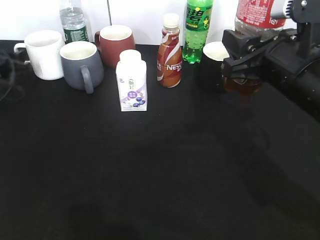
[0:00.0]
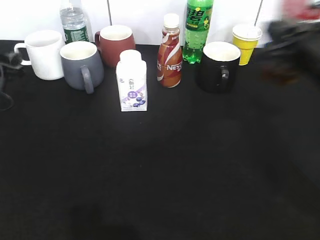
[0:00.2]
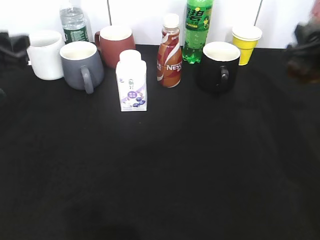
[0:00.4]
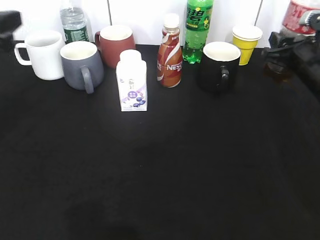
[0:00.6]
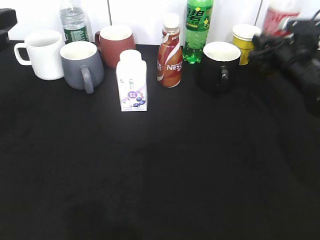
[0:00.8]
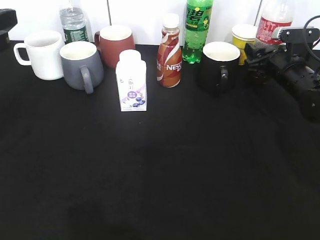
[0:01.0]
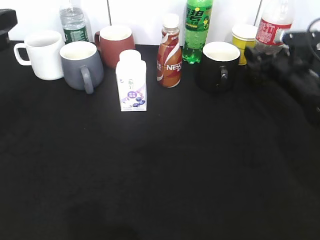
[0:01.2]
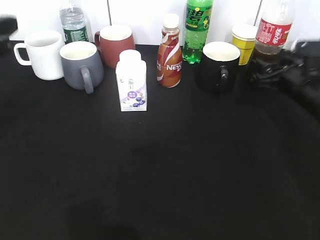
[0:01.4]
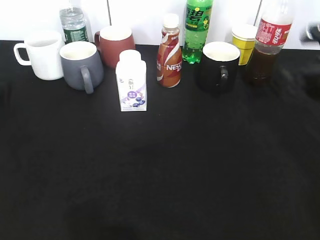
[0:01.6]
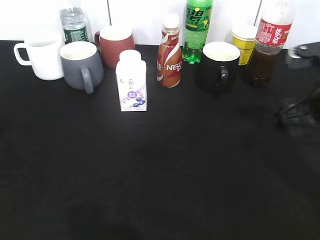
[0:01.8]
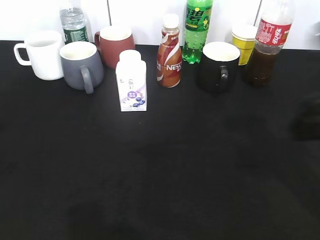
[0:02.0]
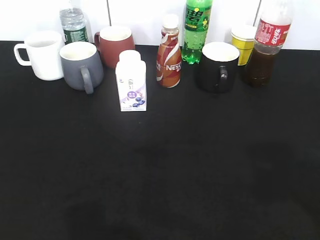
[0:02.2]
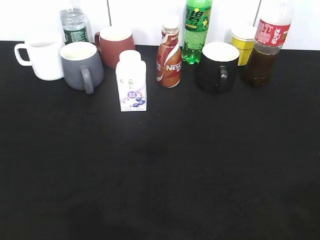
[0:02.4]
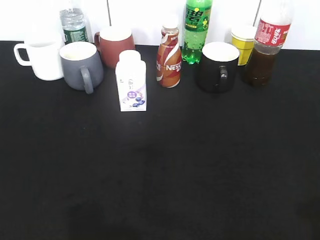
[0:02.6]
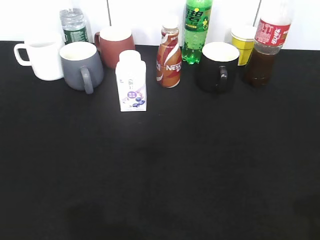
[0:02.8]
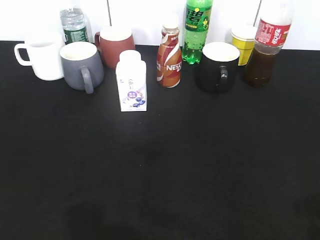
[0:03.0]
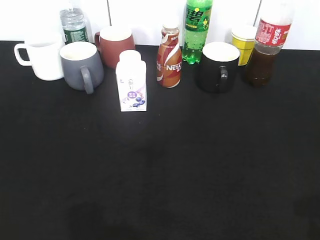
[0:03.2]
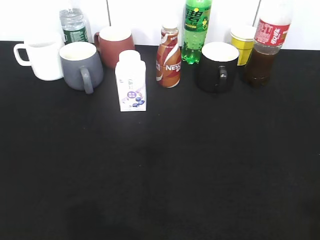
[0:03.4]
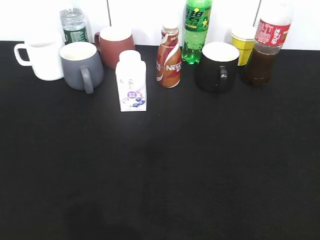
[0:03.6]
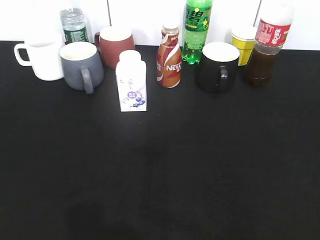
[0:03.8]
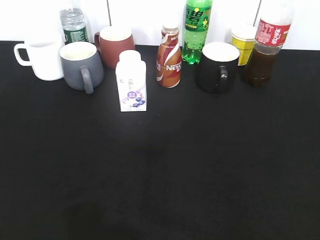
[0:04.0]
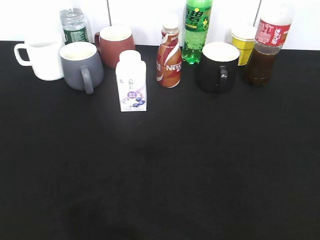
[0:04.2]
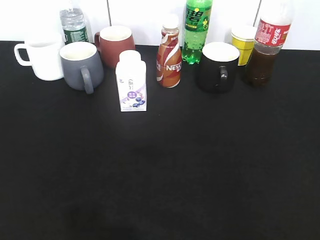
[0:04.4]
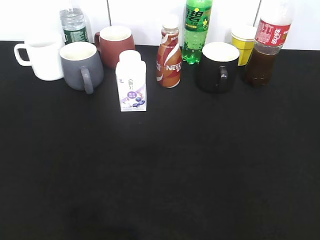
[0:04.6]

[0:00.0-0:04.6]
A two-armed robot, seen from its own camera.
Step, 0:00.2 to 0:01.6: Place the cola bottle on the table with right gripper.
0:00.0 to 0:01.6: The right gripper goes about 15 cm to the right, forward and downward, and opens. Meanwhile the left gripper goes roughly 20 cm backward and upward.
0:01.6 to 0:03.0: Both grippers move backward, some 25 cm.

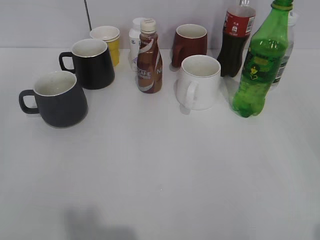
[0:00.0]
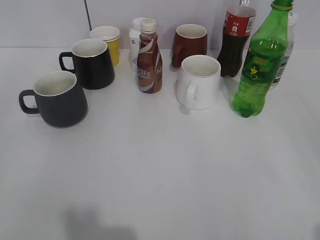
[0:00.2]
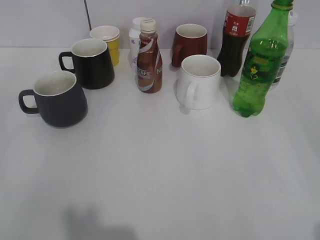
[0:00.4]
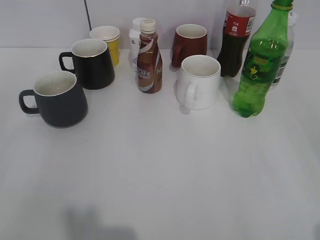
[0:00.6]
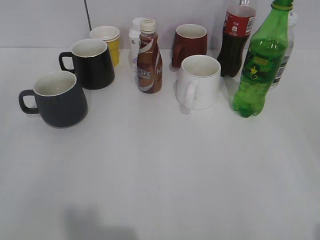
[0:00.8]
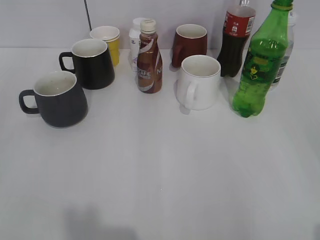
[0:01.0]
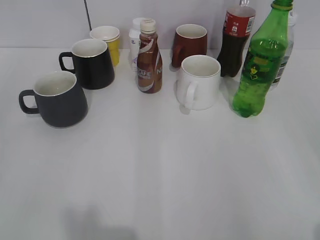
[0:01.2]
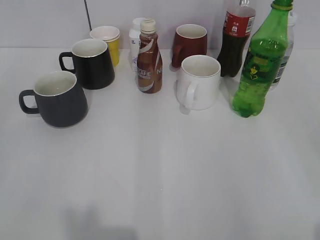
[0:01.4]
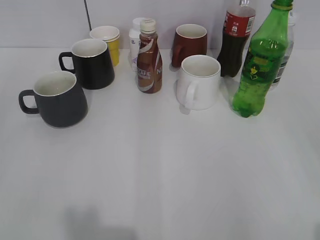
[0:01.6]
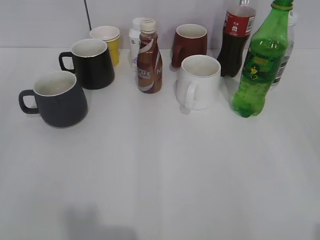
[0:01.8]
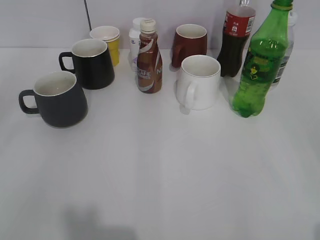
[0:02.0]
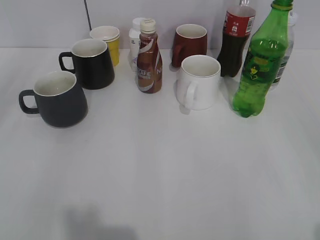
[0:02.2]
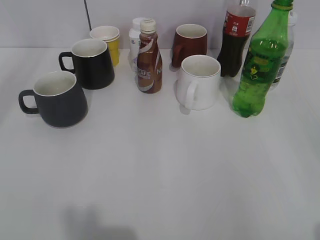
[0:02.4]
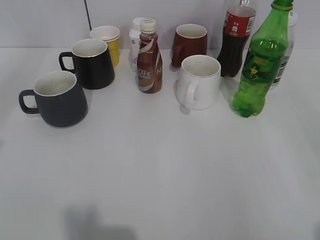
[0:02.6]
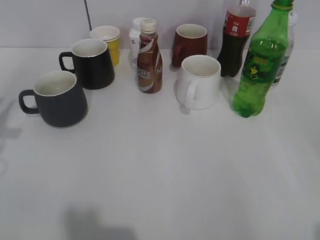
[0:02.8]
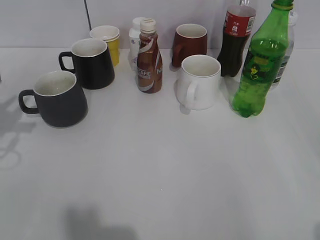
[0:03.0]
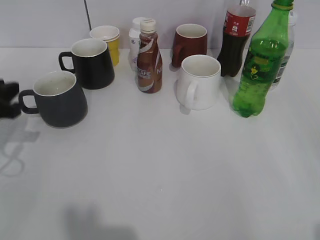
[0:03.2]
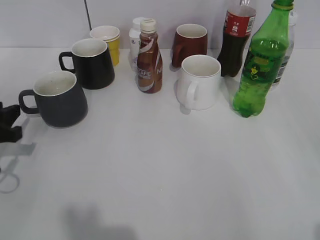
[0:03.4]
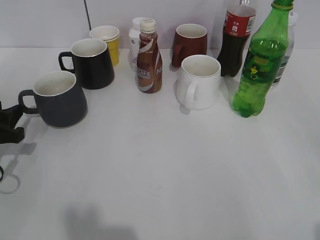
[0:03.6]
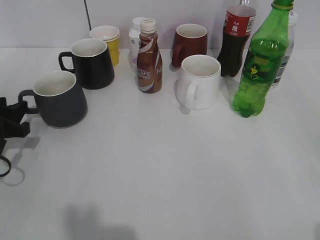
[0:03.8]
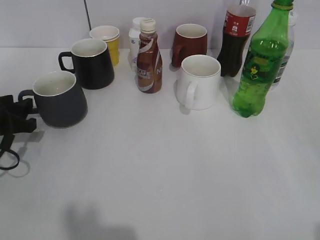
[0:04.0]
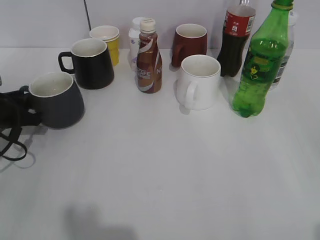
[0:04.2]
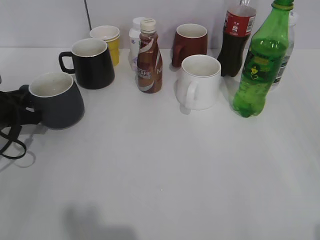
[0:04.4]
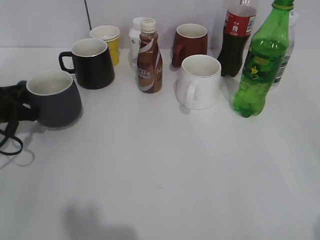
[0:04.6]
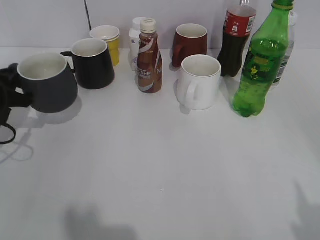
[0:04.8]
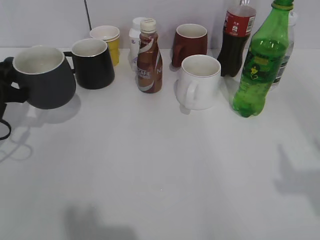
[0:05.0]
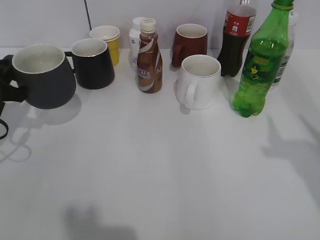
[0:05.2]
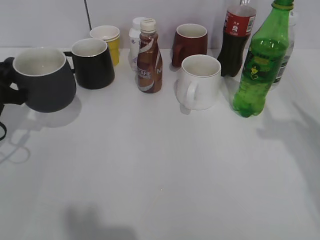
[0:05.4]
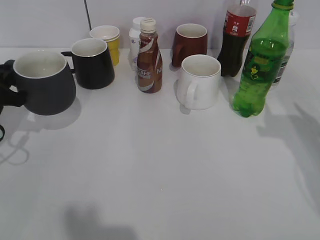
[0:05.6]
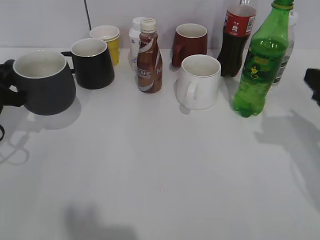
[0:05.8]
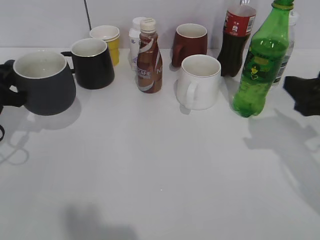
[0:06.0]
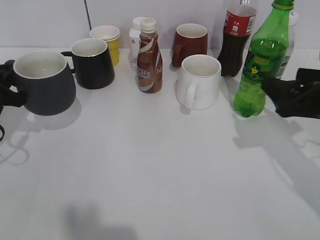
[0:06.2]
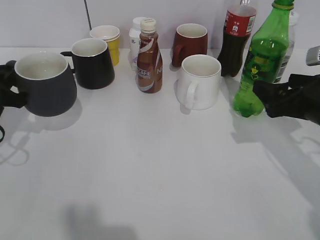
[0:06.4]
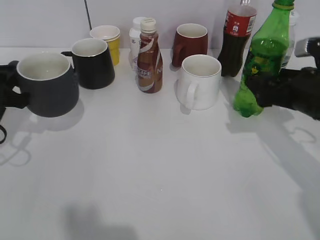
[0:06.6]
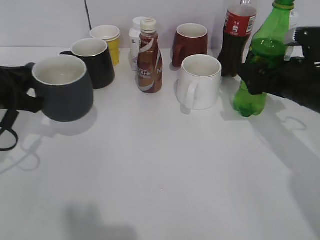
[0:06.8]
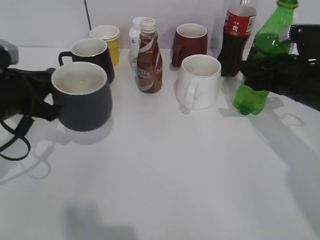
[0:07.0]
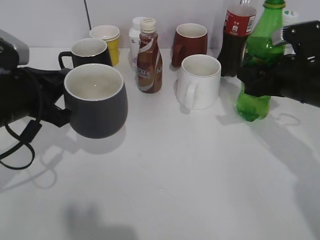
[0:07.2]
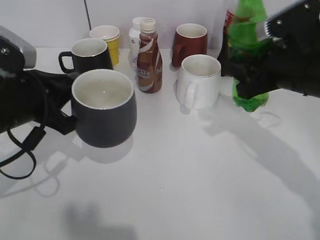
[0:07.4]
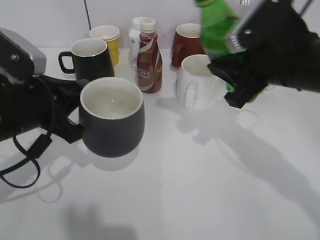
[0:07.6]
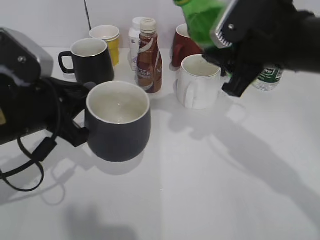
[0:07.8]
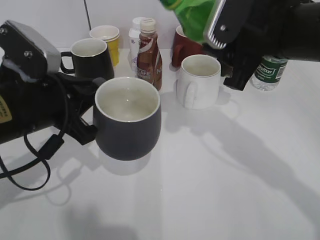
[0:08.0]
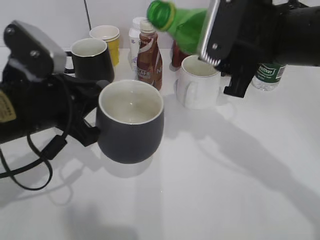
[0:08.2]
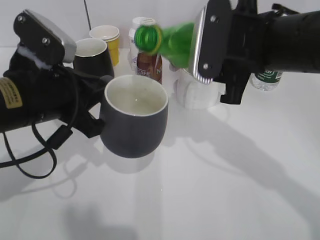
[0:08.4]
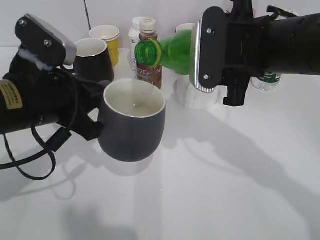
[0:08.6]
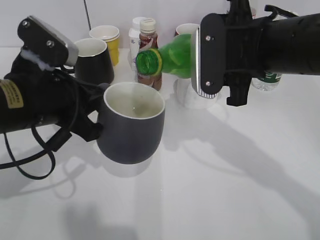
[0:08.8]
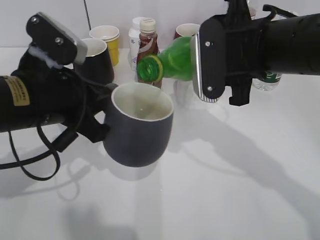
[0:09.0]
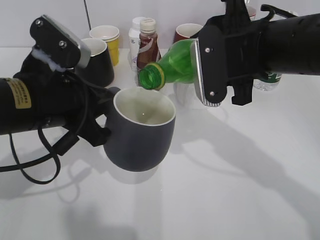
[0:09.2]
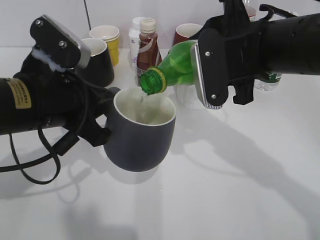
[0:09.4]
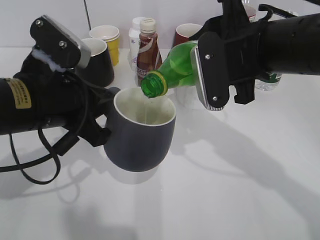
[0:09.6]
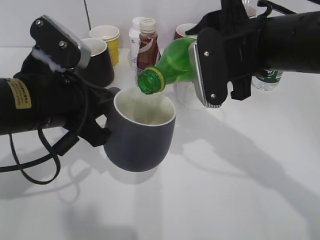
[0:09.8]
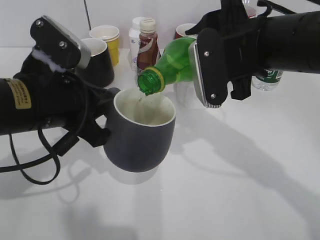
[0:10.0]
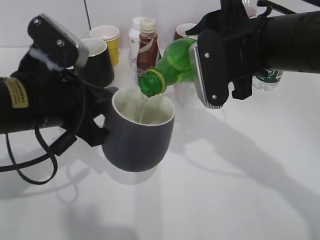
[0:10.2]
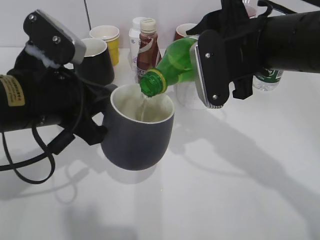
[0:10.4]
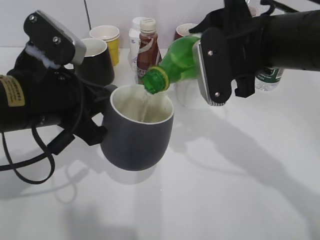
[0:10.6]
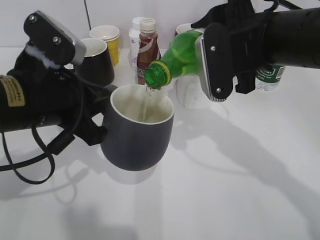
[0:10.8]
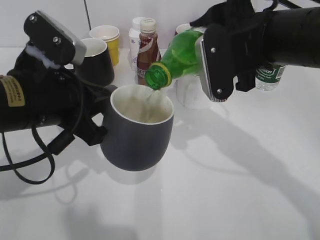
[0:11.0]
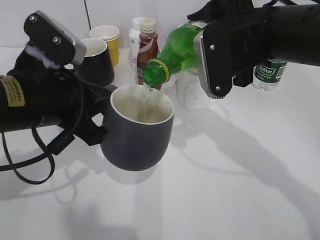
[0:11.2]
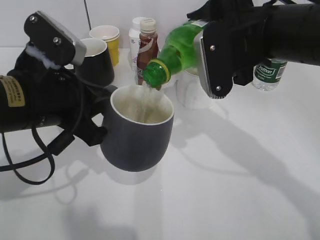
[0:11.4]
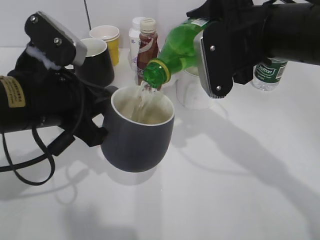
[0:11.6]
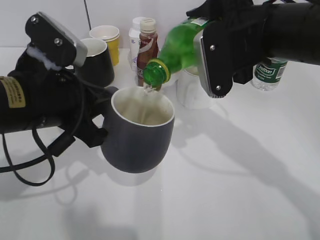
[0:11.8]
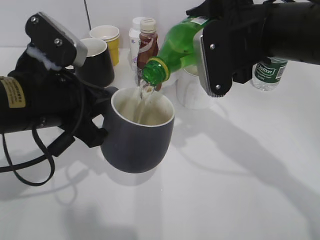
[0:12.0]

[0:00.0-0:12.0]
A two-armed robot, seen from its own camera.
Step, 0:01.8 to 0:04.4: Grasp the grey cup with left gripper.
Step, 0:04.6 to 0:05.4: Lift the grey cup with left gripper.
Step, 0:05.6 to 0:07.0: Grasp the bottle with sprite with right gripper.
0:01.6 to 0:03.0: The left gripper goes some 25 cm forward.
0:03.0 to 0:04.4: The left gripper goes about 15 cm downward and forward, and closes its fingers.
0:04.4 to 0:06.0: The left gripper moves upward, about 5 cm. The right gripper shifts some 25 cm forward.
0:06.0 to 0:07.6: The left gripper shifts some 10 cm to the right and backward, while the right gripper is displaced to the left by about 10 cm, and closes up.
0:09.0 to 0:12.0: There are only small adjustments of the grippers.

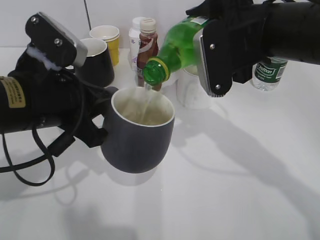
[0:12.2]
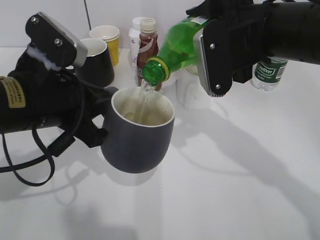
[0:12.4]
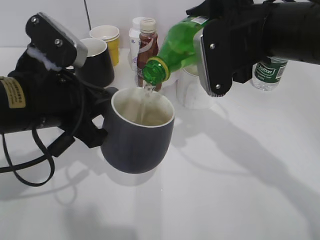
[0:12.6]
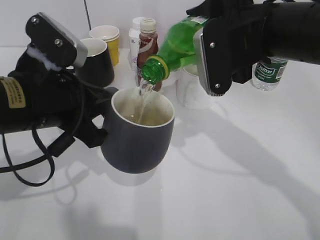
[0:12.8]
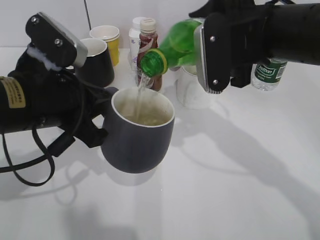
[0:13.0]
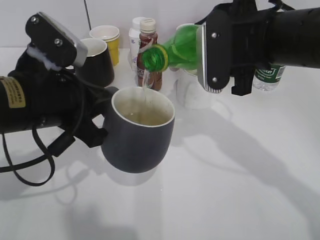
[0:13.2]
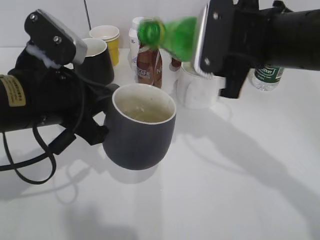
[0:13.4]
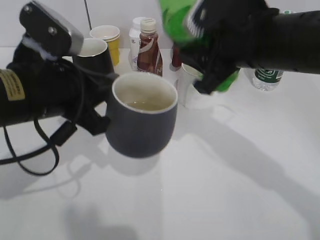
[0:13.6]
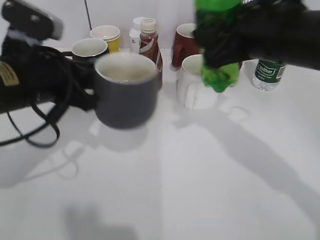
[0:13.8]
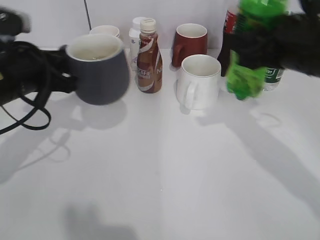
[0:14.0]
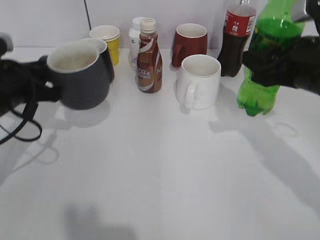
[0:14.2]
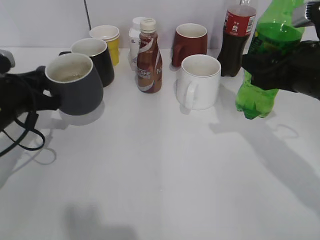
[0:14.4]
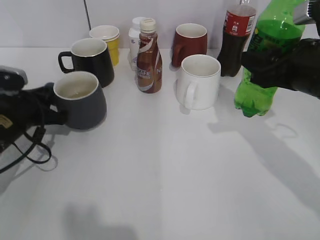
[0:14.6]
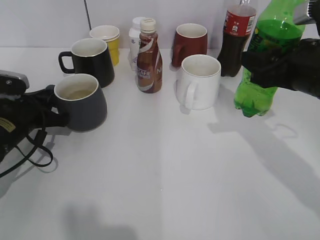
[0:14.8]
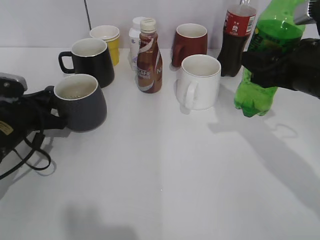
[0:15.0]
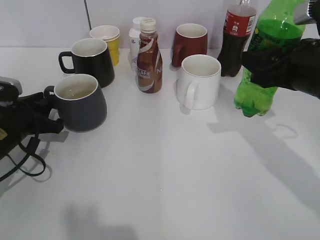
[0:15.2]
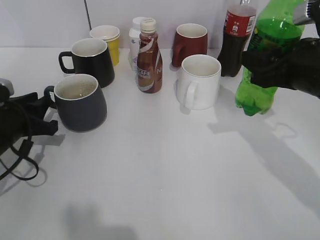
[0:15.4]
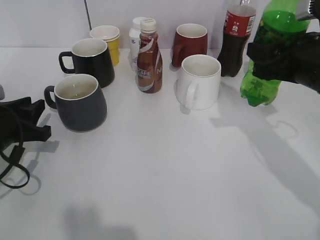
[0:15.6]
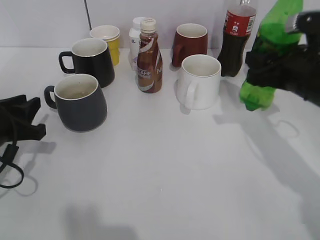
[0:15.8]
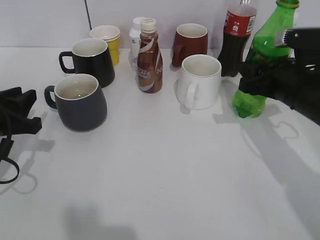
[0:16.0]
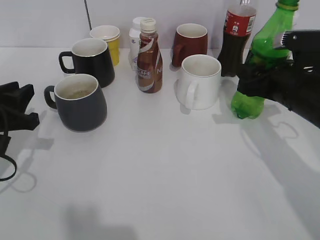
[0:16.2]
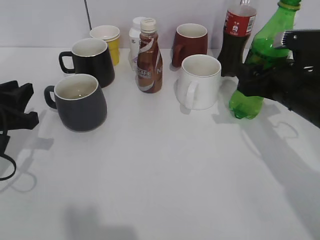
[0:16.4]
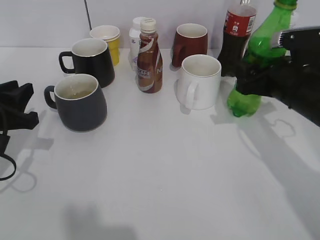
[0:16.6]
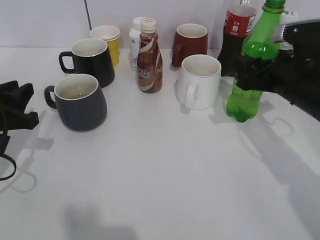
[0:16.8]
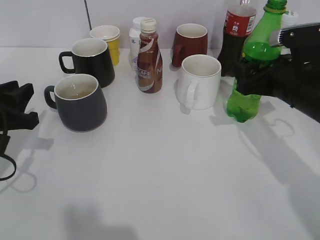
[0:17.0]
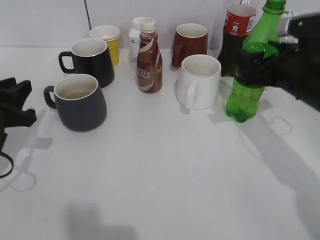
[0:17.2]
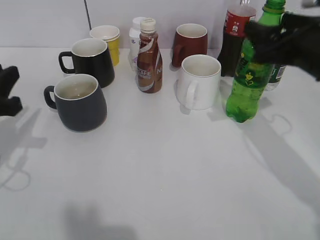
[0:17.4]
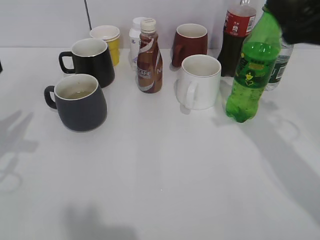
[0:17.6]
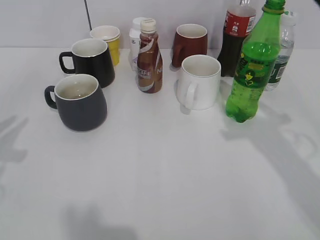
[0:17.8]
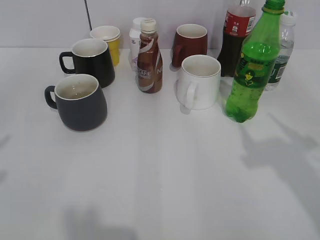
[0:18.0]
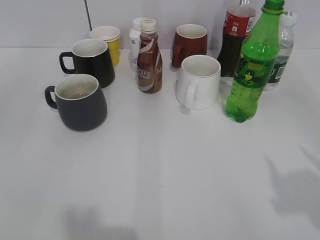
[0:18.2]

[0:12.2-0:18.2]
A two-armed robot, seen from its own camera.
Step, 0:13.6 to 0:15.2: Place the grey cup on the table with left gripper.
Step, 0:15.4 to 0:17.0: Place the sprite bottle on the table with right gripper.
0:13.8 to 0:15.2: The left gripper goes about 15 cm downward and to the left, and opens up, while the right gripper heads to the right, covering some 5 cm.
0:15.2 to 0:16.6: The left gripper travels upward by some 5 cm; the right gripper heads downward, covering roughly 5 cm, and opens up.
0:16.6 to 0:18.2: The grippers both shift backward and upward by approximately 25 cm.
